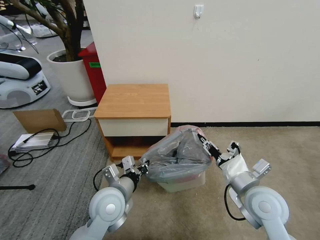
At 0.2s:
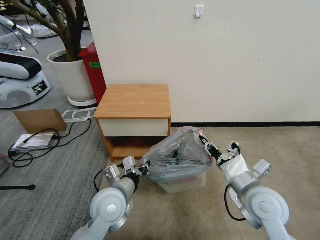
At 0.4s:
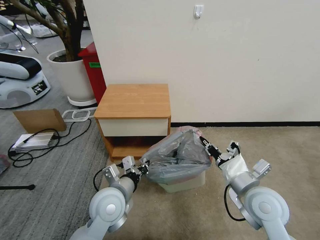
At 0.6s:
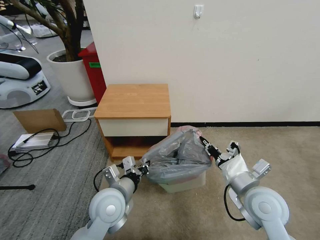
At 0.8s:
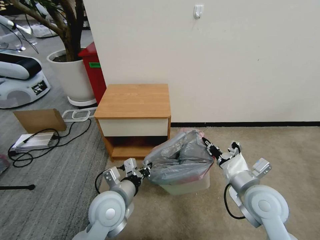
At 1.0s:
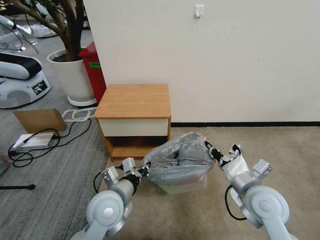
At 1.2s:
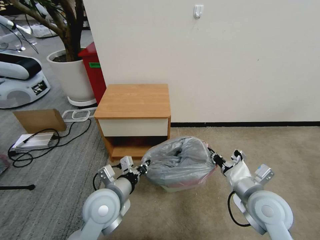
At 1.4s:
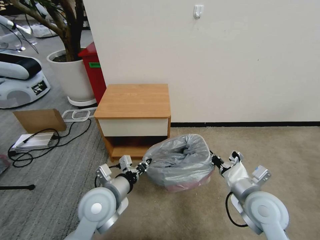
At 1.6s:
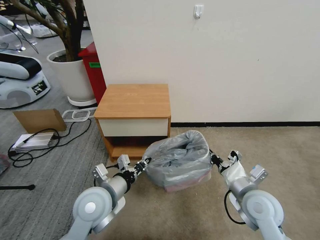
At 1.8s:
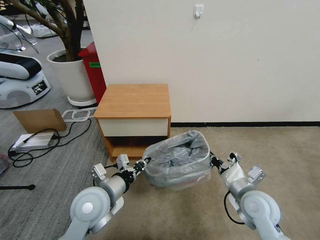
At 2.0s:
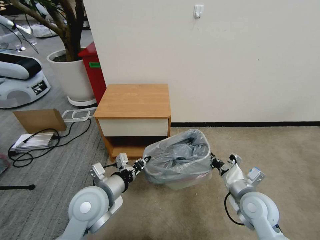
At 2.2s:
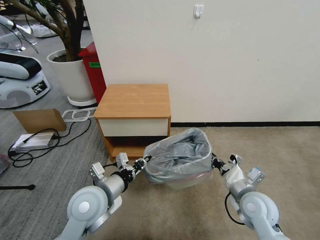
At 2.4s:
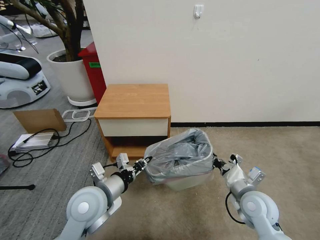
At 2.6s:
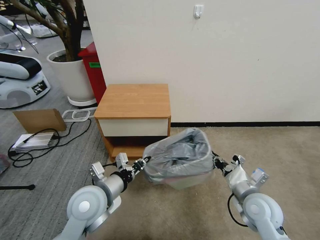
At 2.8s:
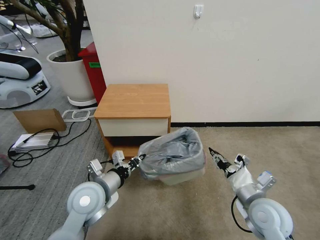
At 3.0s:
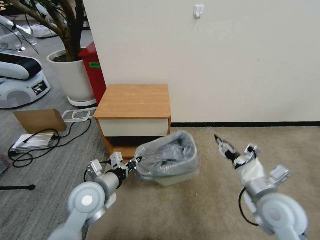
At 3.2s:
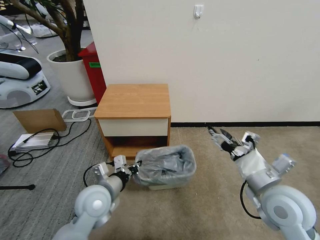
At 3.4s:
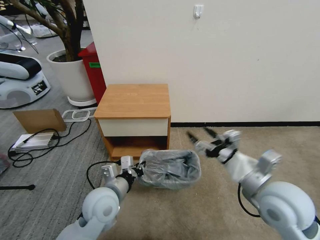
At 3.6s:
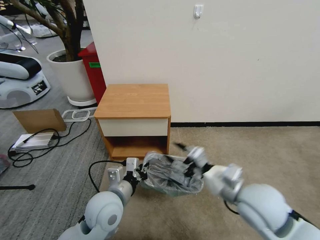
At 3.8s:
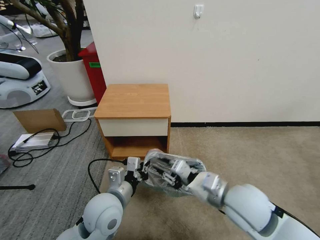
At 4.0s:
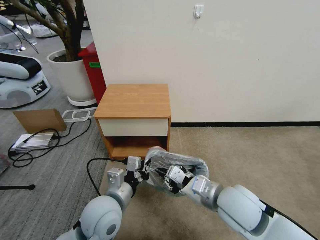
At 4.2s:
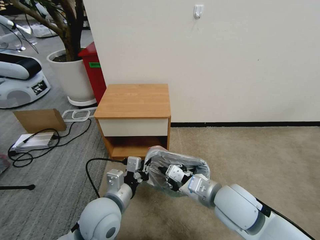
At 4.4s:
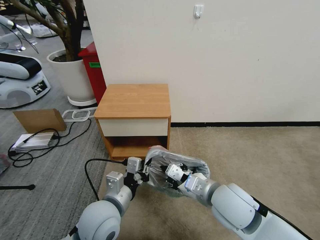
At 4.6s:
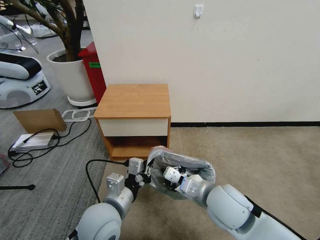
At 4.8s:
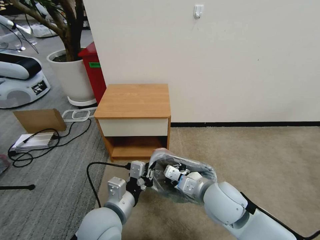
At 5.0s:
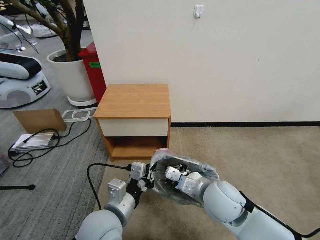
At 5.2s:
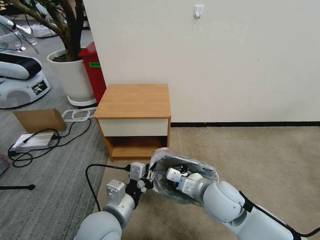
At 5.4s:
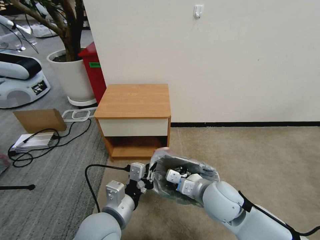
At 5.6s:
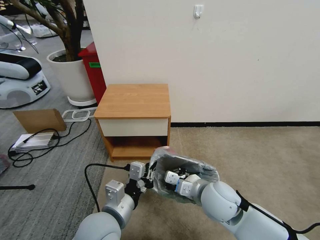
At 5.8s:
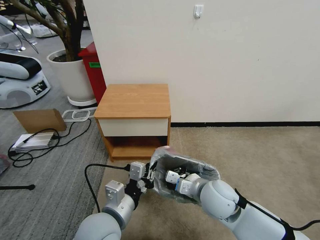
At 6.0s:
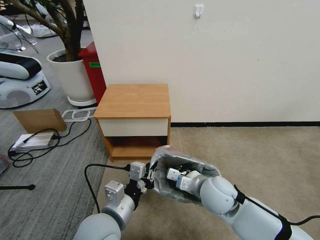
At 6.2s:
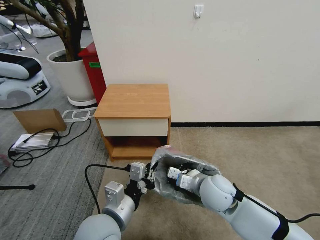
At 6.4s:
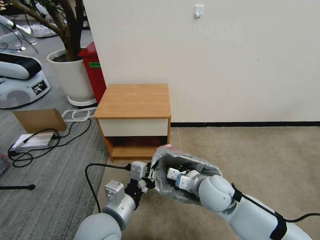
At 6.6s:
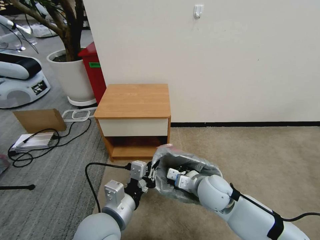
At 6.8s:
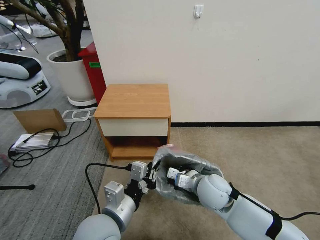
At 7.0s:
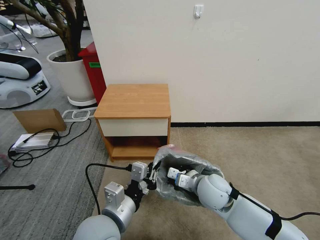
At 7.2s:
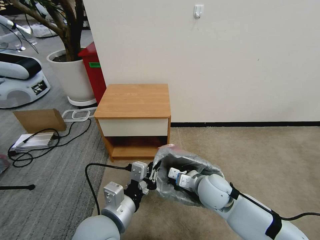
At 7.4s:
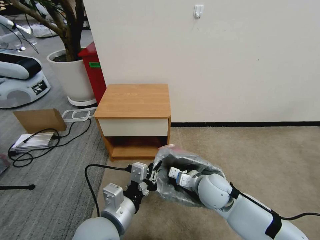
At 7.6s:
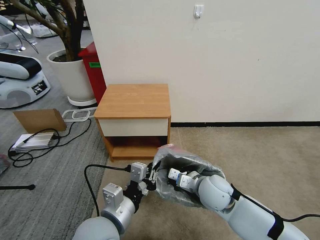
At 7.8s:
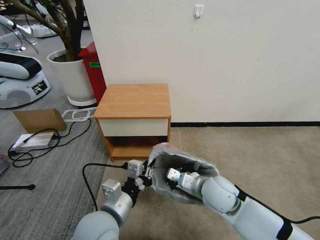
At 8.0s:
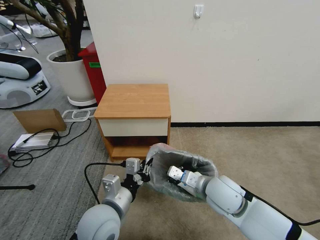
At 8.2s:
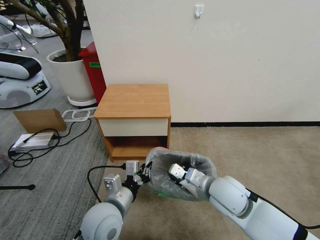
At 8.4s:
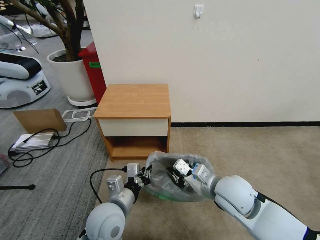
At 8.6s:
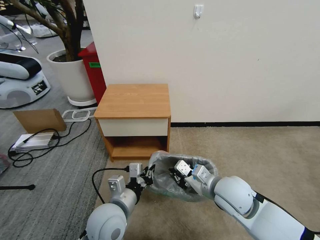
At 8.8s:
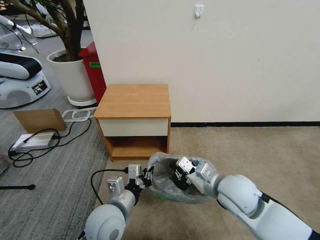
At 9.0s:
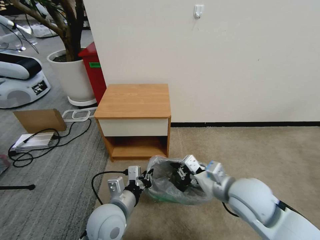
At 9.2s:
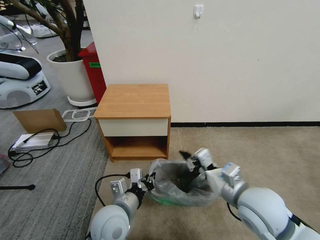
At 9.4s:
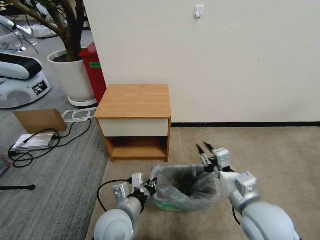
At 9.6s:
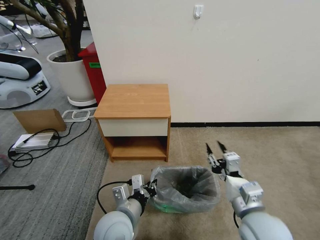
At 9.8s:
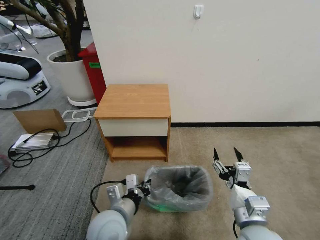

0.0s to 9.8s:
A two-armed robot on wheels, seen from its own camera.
Task of the whole recording: Pick up the garbage bag from the table and place it over the trash can.
0.0s to 1.4s: The right gripper closes up.
1.4s to 2.8s: The right gripper opens up.
2.8s to 4.2s: The left gripper moves to the right, about 5 cm, while the right gripper moves to the left and upward, some 15 cm, and closes up.
4.2s to 5.6s: The right gripper ends up some 5 cm from where it was.
5.6s to 7.0s: The grippers stay close to where they were, moving slightly.
7.0s to 8.4s: The left gripper goes roughly 5 cm downward; the right gripper heads upward, covering approximately 5 cm.
8.4s to 9.8s: The right gripper heads backward, covering some 10 cm, and opens up.

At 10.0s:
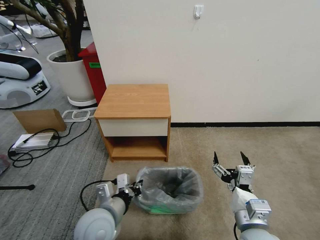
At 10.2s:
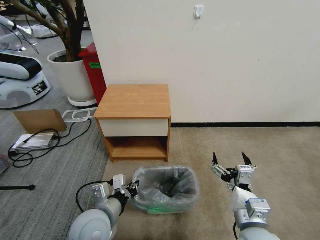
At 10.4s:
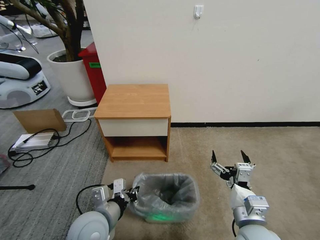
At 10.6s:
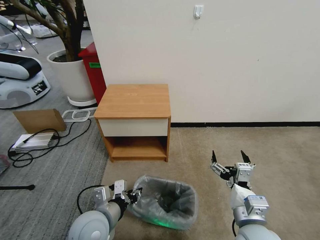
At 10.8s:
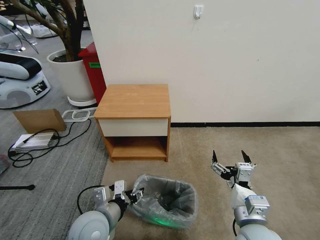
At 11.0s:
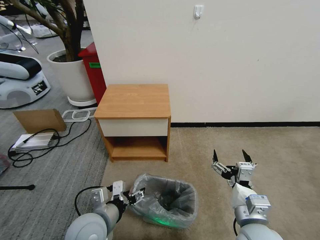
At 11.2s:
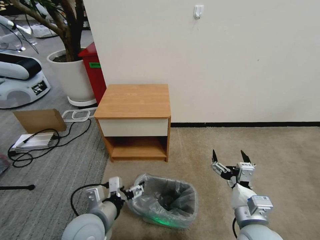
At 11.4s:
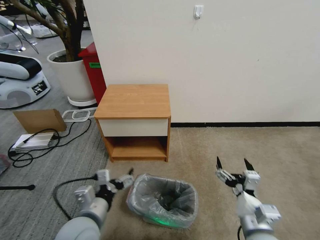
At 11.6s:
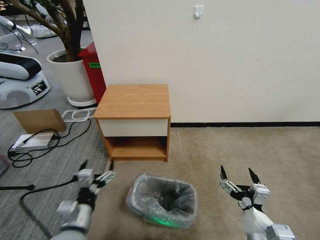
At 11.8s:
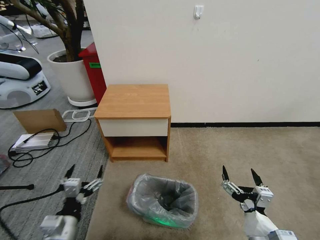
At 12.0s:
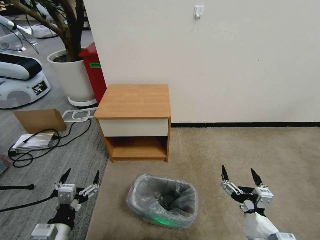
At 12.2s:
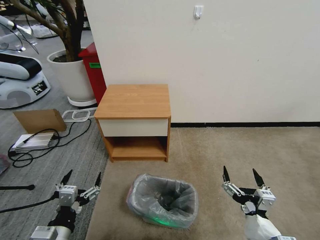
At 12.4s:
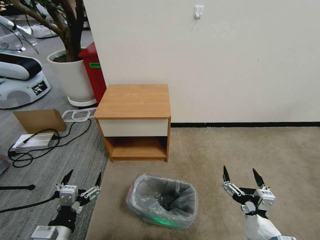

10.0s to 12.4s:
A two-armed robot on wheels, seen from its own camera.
Task of the whole recording: Pick up the garbage bag from the table and place it over the trash can.
10.0s to 11.2s: The left gripper opens up.
11.2s to 12.4s: The left gripper shifts approximately 10 cm to the left and backward; the right gripper heads backward, covering approximately 5 cm.

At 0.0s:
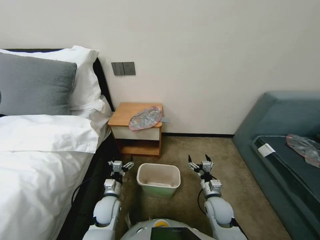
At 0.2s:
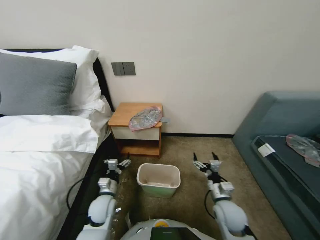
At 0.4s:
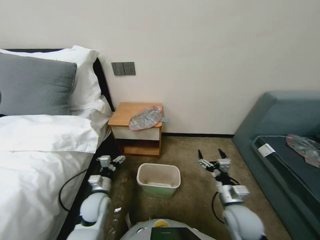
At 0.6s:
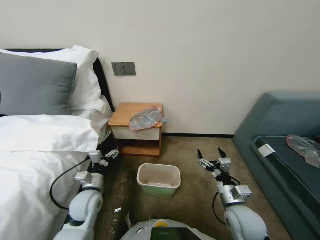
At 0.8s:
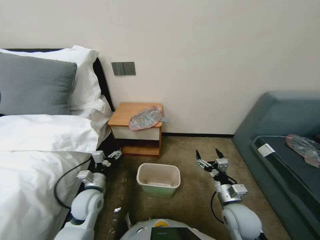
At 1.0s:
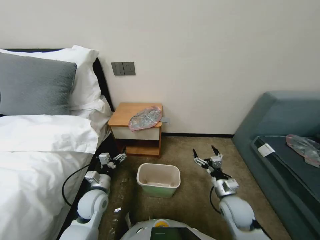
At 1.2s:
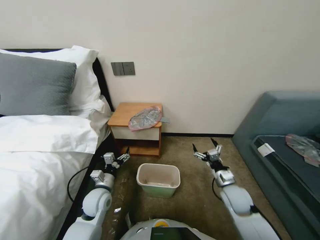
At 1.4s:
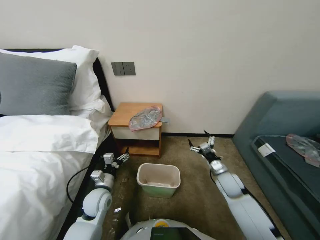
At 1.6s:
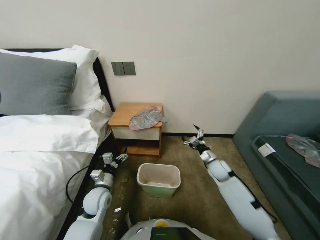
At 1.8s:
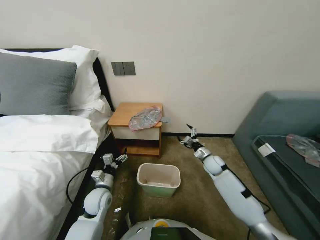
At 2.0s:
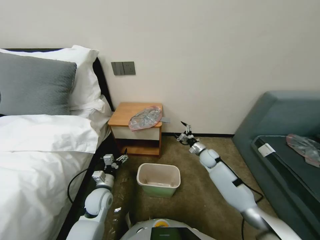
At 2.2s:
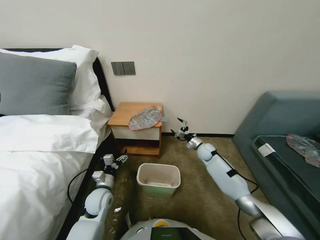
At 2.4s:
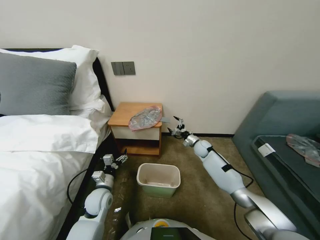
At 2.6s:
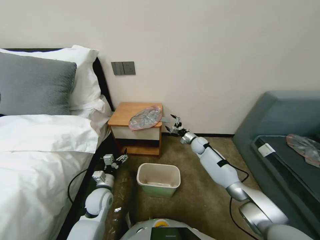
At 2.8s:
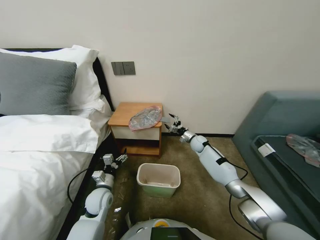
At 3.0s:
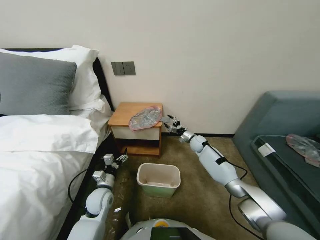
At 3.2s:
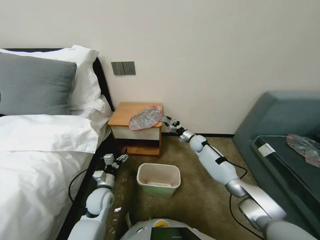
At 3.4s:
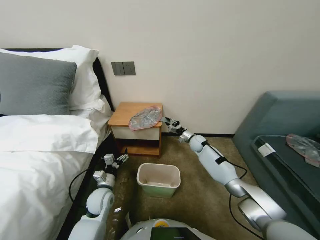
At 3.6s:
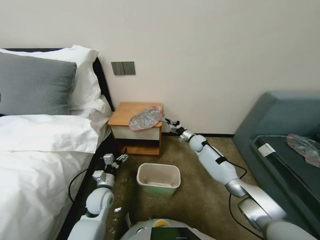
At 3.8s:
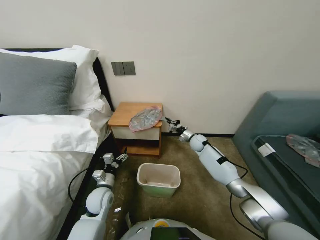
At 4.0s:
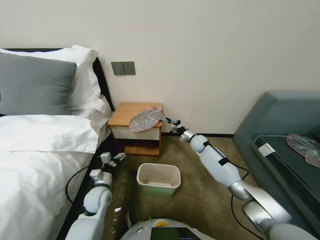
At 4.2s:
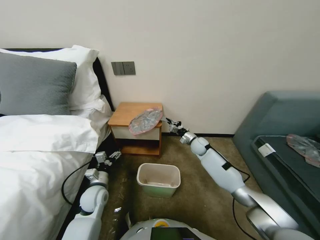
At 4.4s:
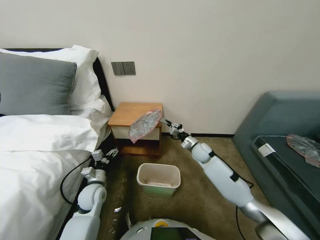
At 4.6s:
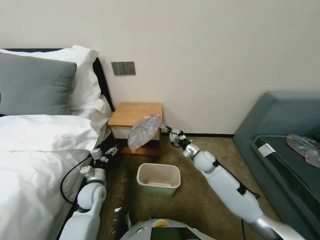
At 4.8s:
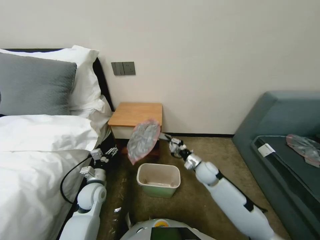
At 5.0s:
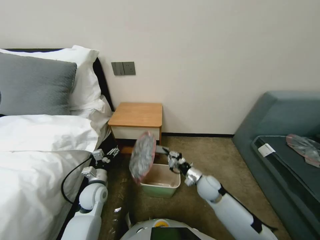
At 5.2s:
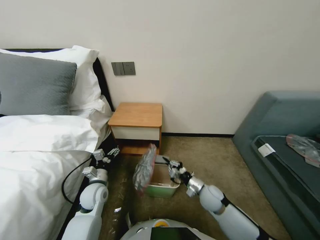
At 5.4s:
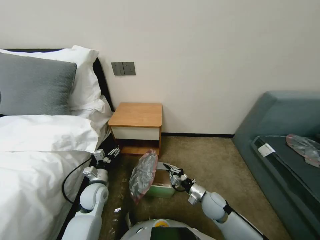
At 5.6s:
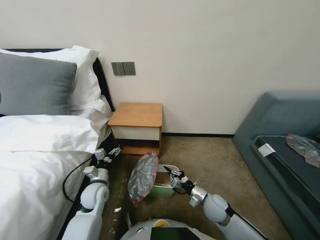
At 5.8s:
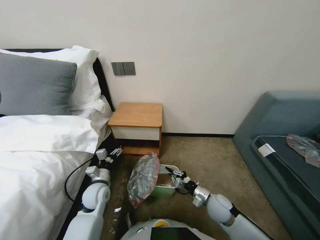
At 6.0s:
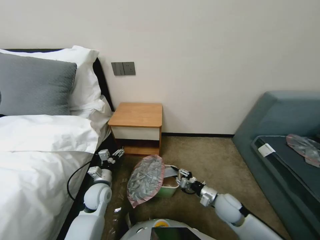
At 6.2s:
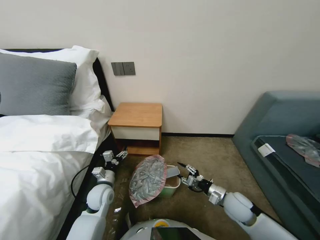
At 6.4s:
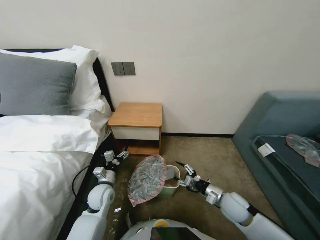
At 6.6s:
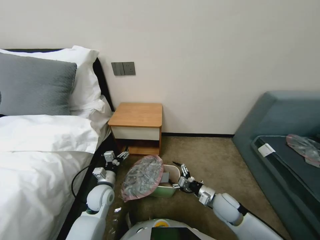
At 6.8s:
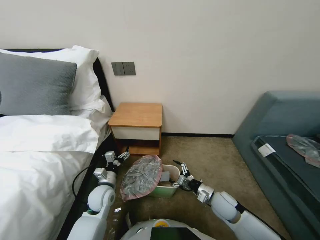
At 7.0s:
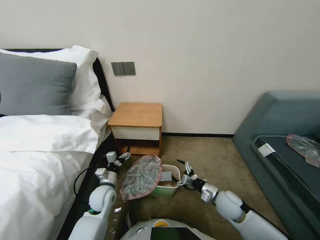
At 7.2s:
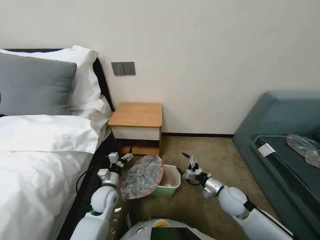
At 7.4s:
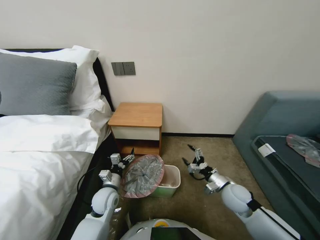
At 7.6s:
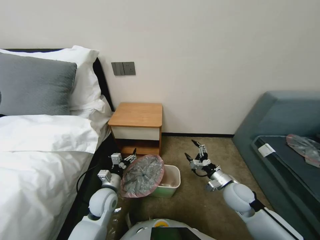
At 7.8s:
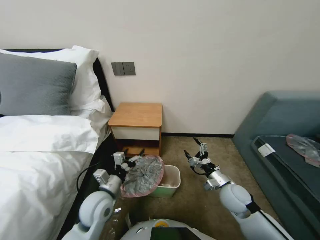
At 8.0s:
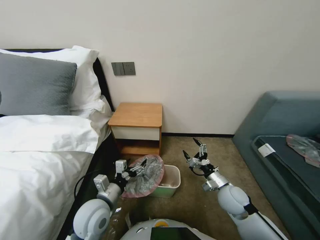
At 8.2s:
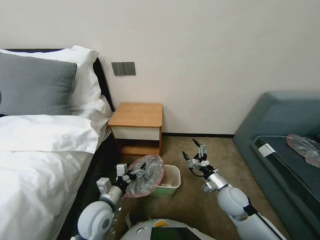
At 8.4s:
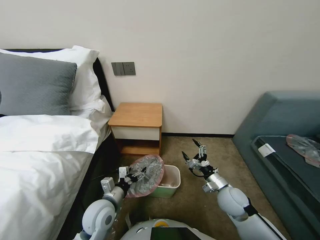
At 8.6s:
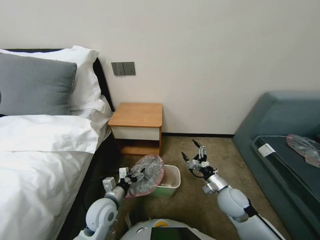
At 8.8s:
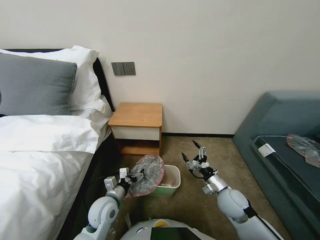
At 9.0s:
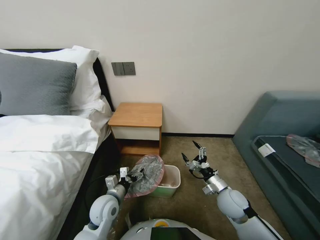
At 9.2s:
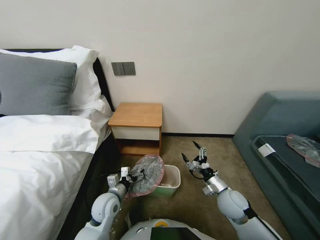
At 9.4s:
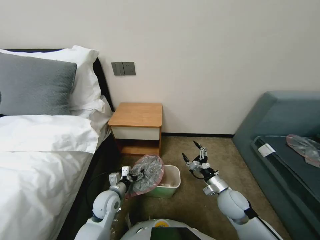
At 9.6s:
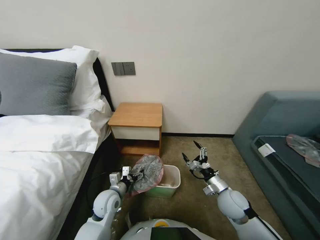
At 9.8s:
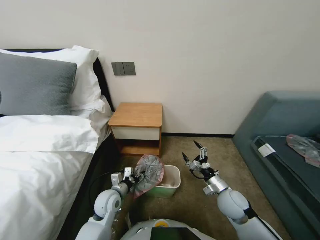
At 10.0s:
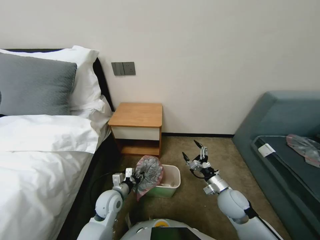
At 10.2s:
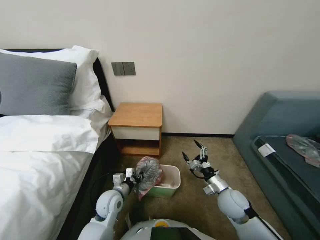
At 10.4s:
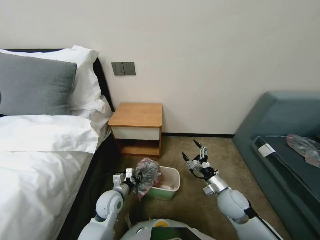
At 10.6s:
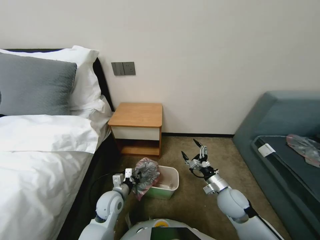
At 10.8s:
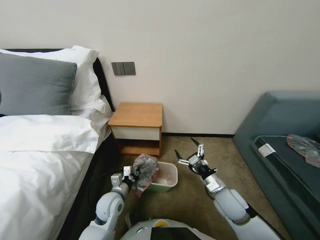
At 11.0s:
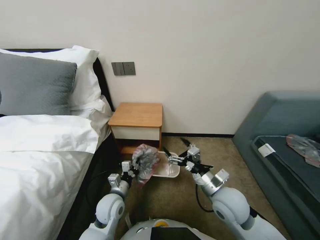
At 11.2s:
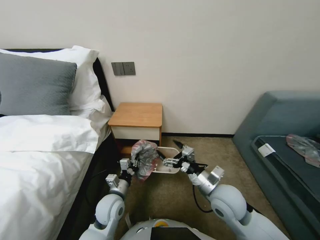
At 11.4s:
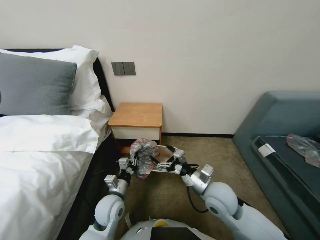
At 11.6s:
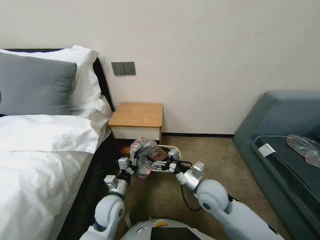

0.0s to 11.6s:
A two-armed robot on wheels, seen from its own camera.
Task of the whole recording: Pick up the garbage bag from the table and place it over the trash can.
1.4s to 2.8s: The right gripper heads forward, covering approximately 25 cm.
2.8s to 4.4s: The right gripper heads backward, covering some 5 cm, and closes up.
4.4s to 5.8s: The right gripper heads backward, covering some 25 cm.
5.8s to 7.2s: The right gripper changes place by roughly 5 cm, and opens.
7.2s to 8.8s: The left gripper goes approximately 5 cm backward, and goes upward and returns, approximately 10 cm each way.
8.8s to 10.2s: The left gripper closes its fingers.
10.2s to 11.6s: The right gripper shifts some 15 cm to the left and upward.
